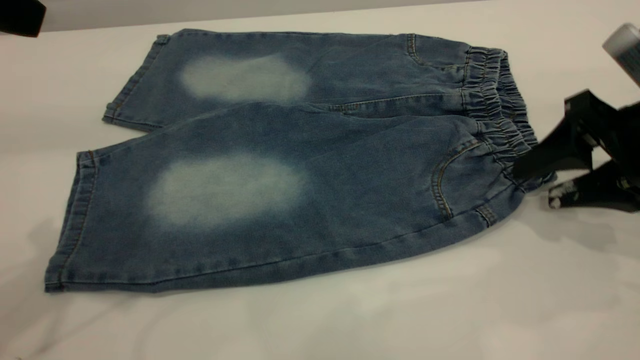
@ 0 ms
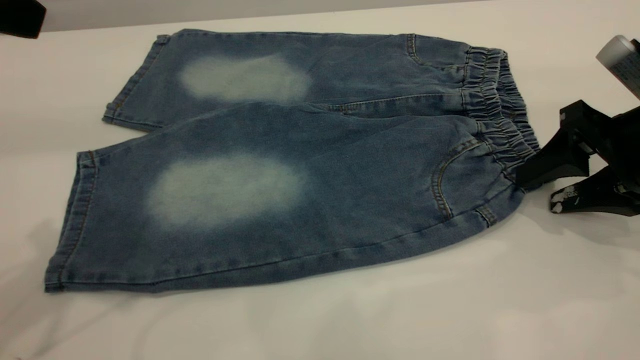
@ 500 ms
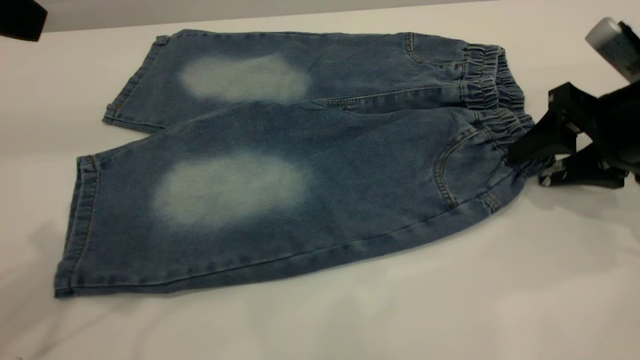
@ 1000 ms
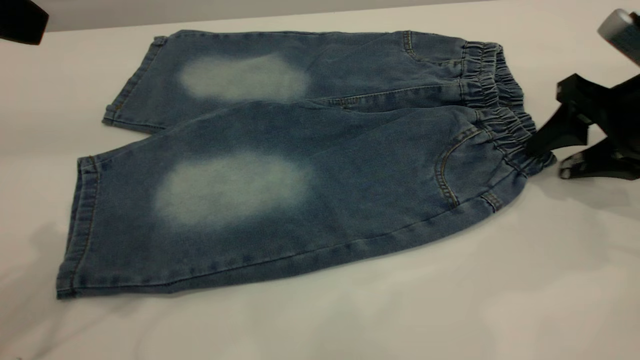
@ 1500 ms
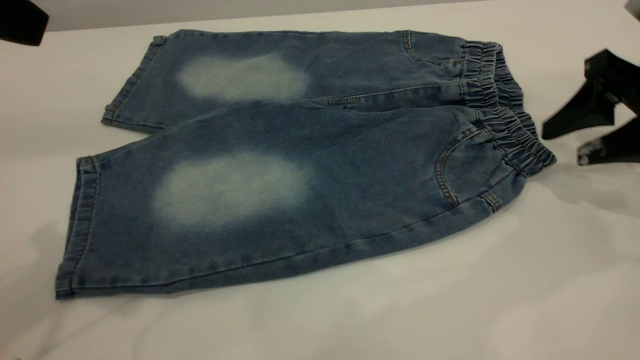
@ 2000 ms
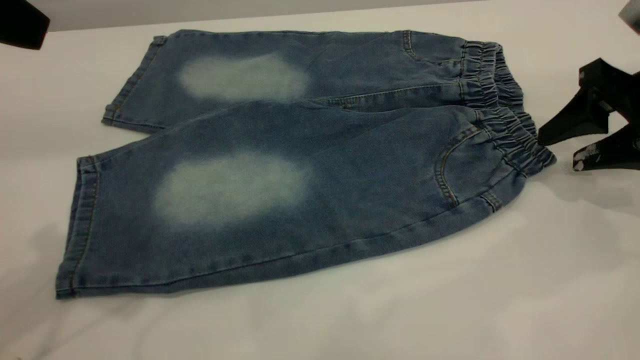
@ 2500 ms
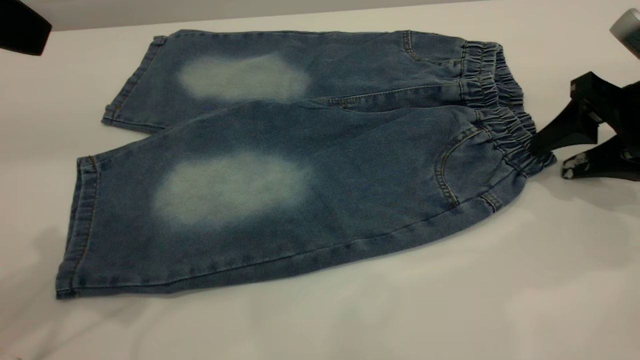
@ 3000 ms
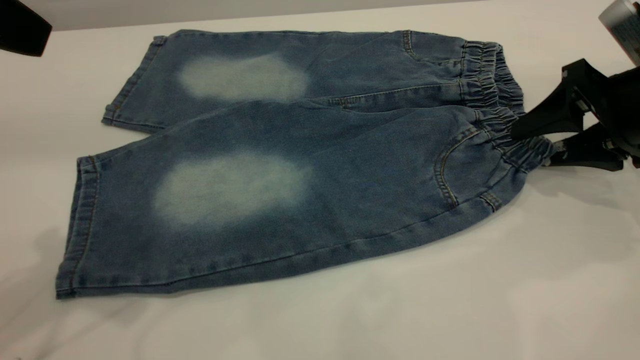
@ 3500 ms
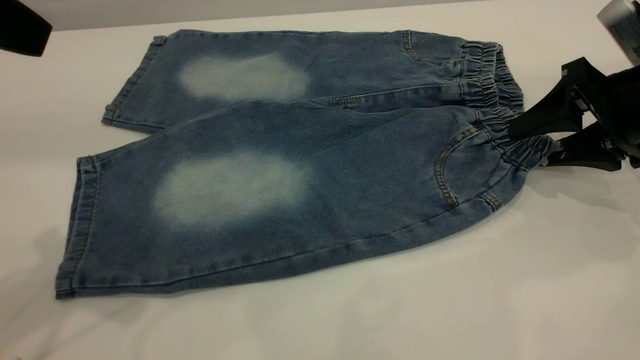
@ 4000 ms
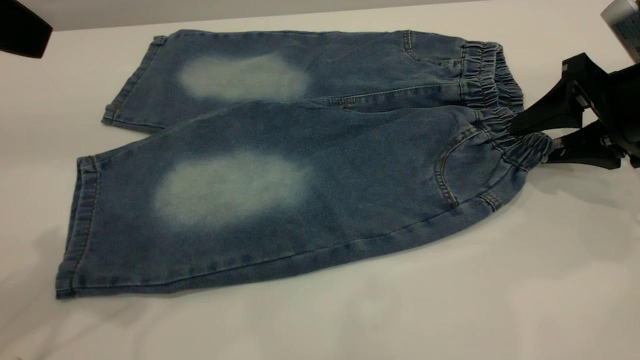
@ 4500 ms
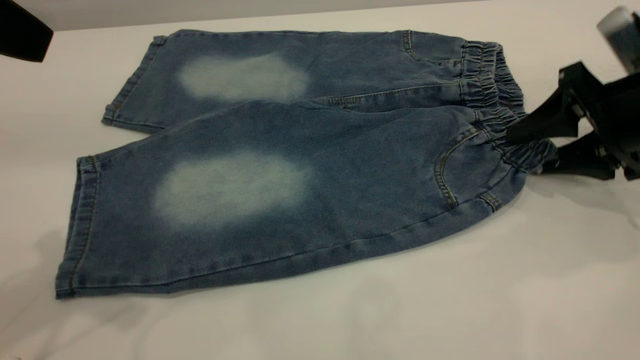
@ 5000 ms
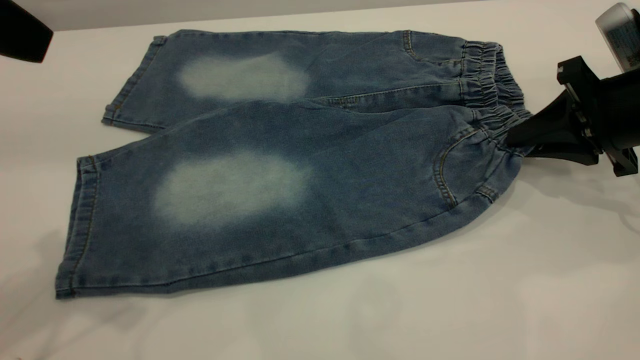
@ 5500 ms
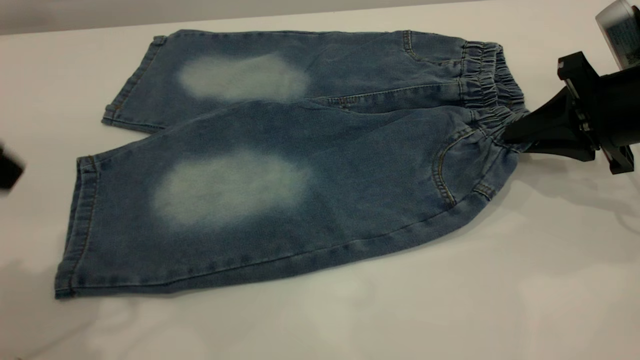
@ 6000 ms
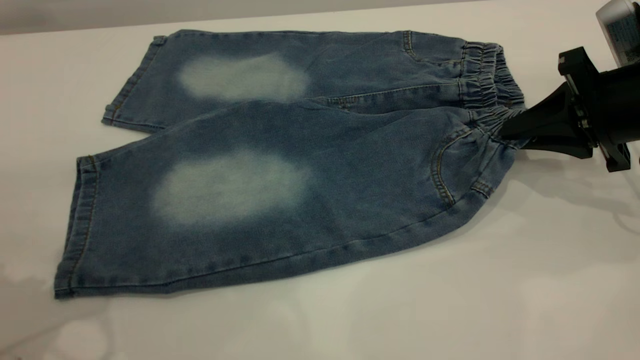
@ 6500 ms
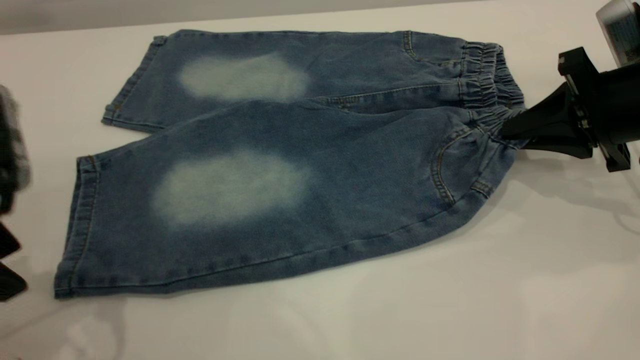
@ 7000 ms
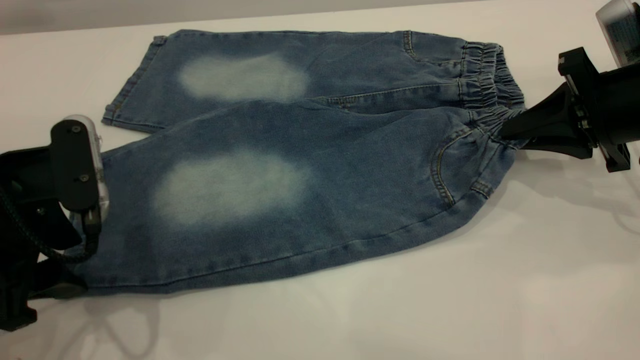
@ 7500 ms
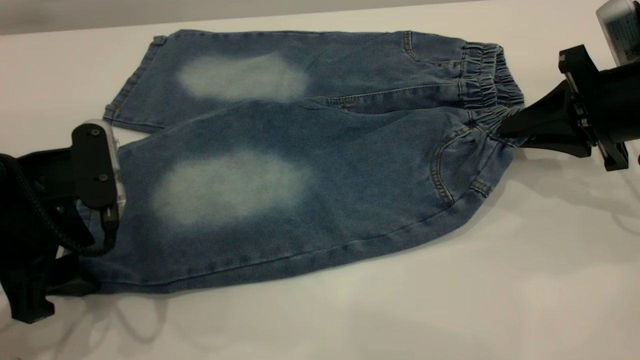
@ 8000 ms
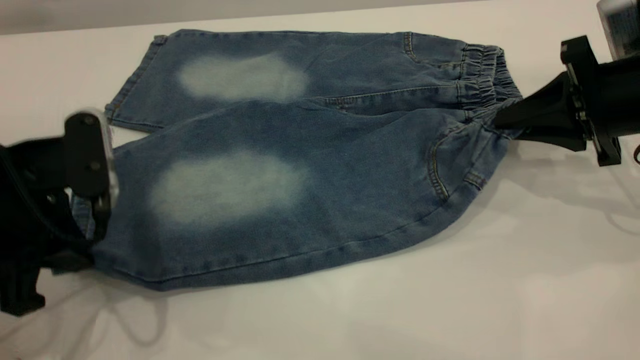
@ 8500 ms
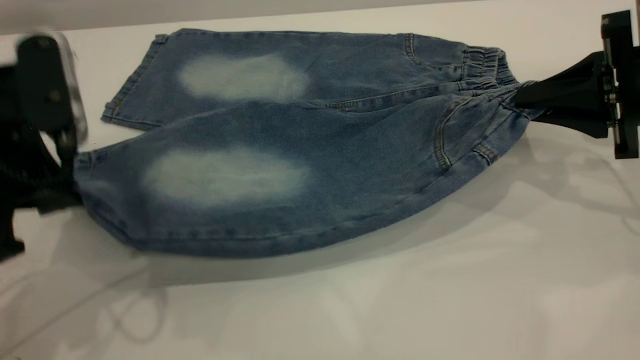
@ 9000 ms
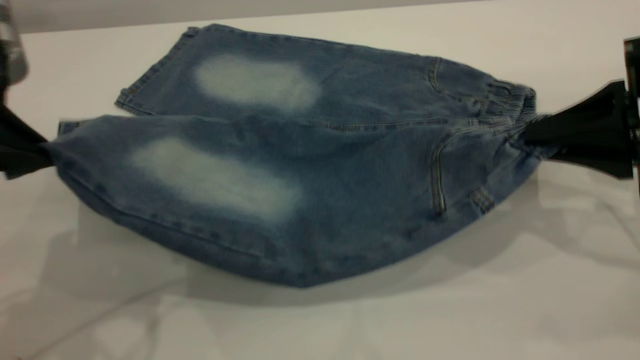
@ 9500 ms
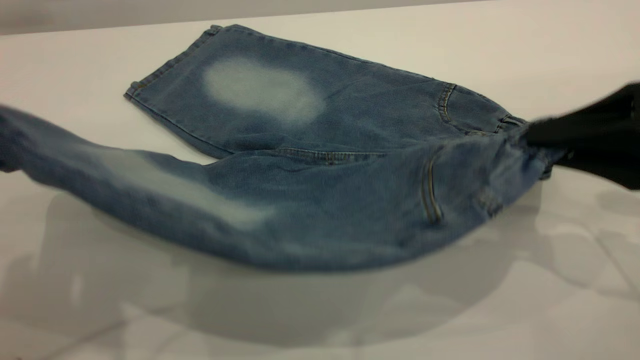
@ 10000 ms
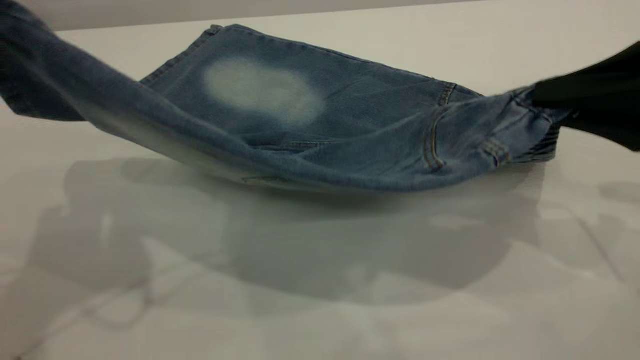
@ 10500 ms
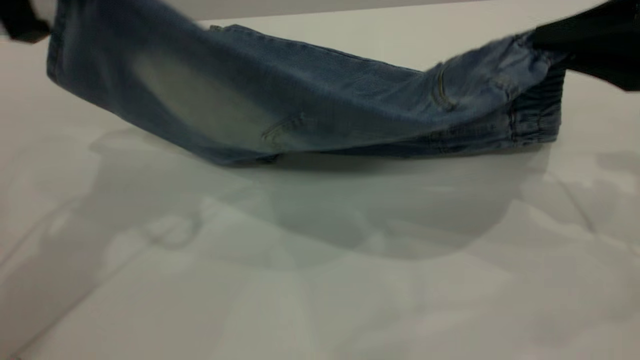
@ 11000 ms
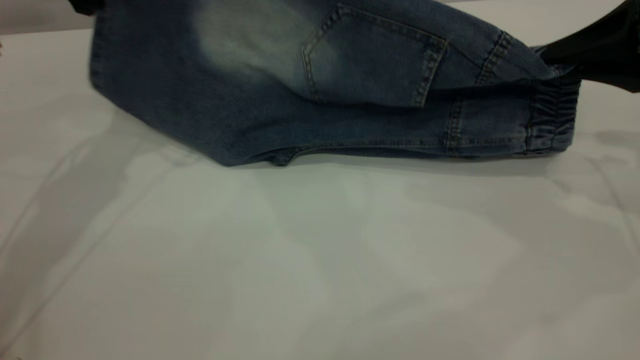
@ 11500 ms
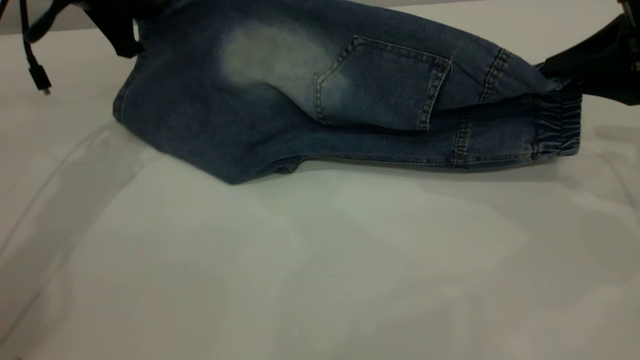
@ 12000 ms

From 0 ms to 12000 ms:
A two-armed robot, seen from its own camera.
From 0 ms to 4000 ms: There are only small adjustments of the grippers.
From 4000 ms to 6000 ms: The right gripper closes its fingers, while the left gripper travels downward by about 5 cm.
From 6000 ms to 8000 ms: The left gripper heads downward, covering about 15 cm.
From 8000 ms to 10000 ms: The right gripper heads backward and upward, covering about 10 cm. The left gripper heads upward, covering roughly 15 cm, and closes up.
From 10000 ms to 12000 ms: The left gripper goes approximately 25 cm forward, while the right gripper shifts roughly 10 cm forward.

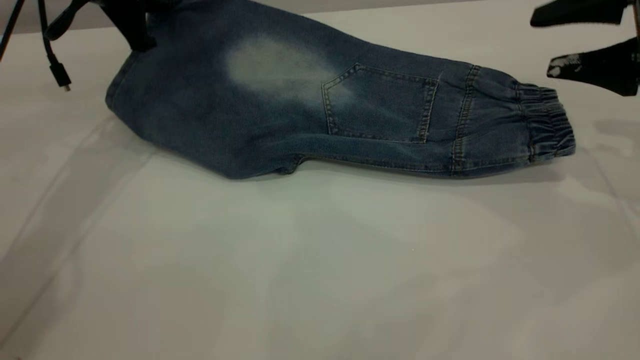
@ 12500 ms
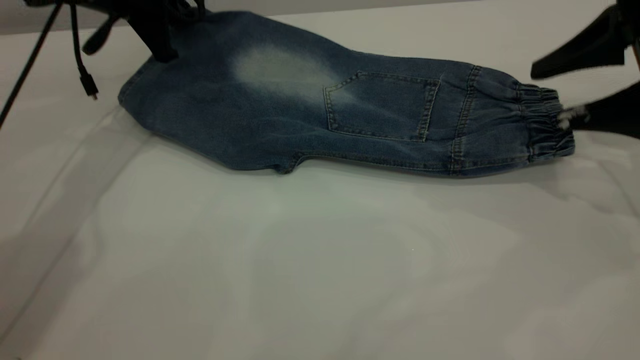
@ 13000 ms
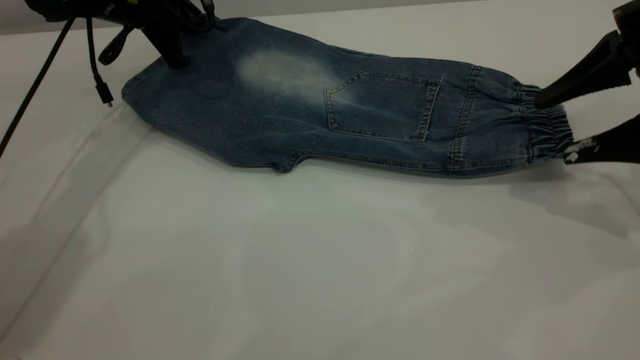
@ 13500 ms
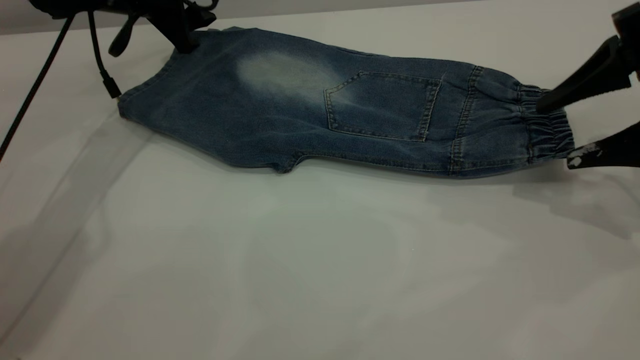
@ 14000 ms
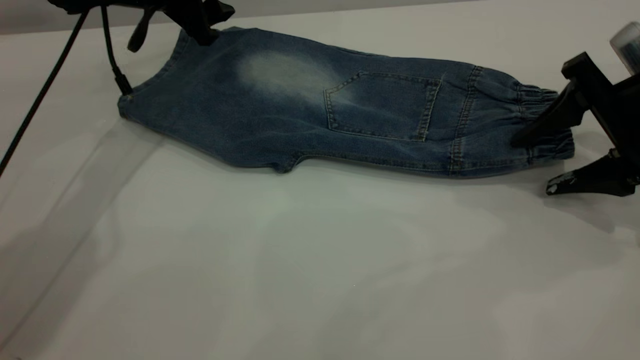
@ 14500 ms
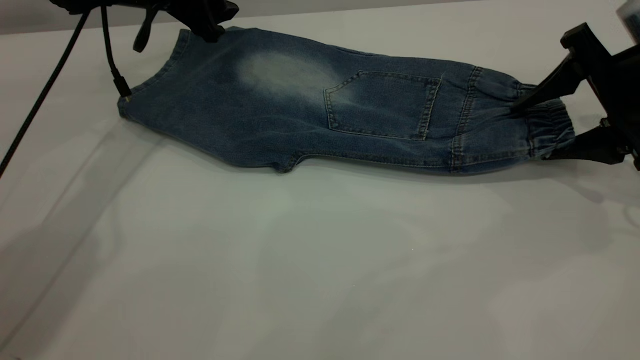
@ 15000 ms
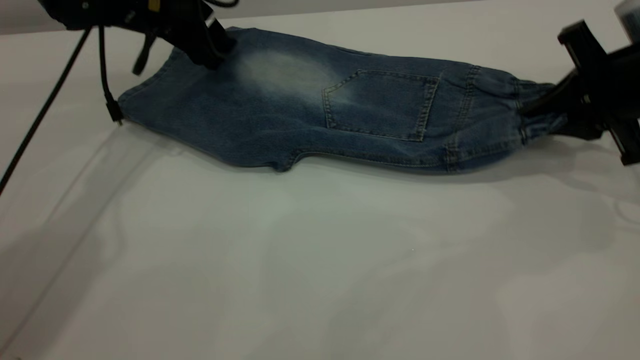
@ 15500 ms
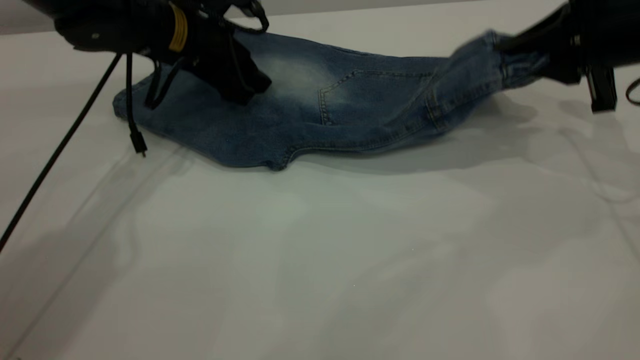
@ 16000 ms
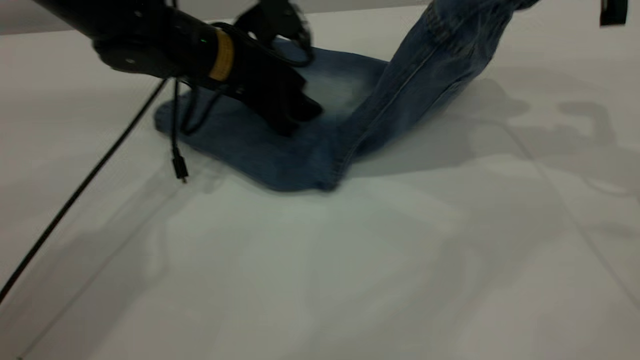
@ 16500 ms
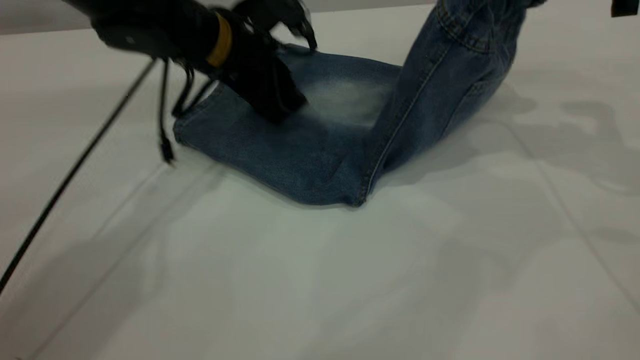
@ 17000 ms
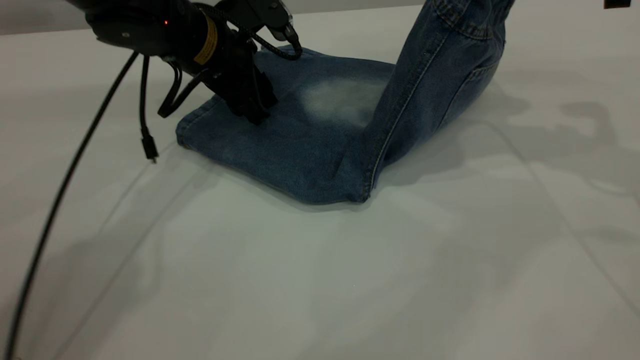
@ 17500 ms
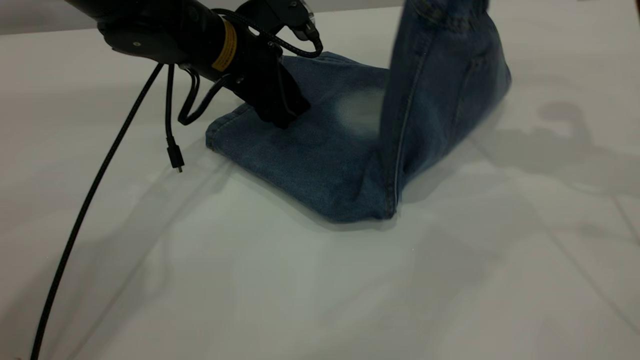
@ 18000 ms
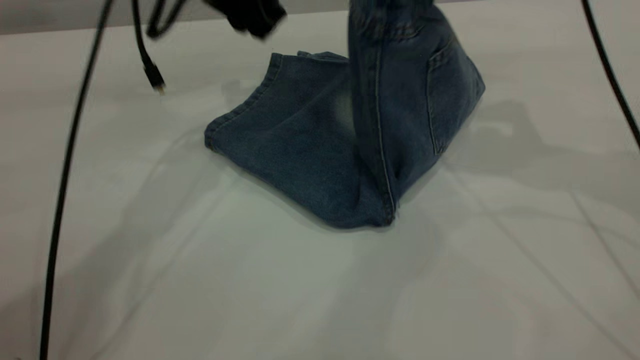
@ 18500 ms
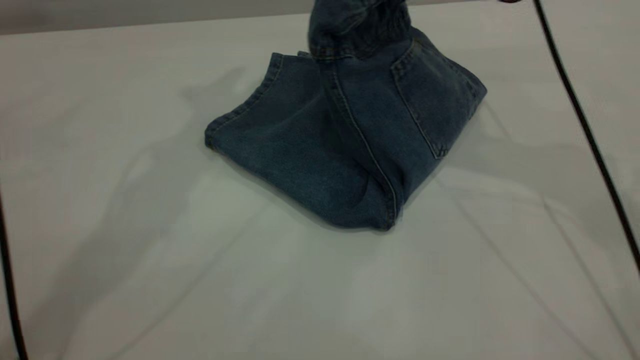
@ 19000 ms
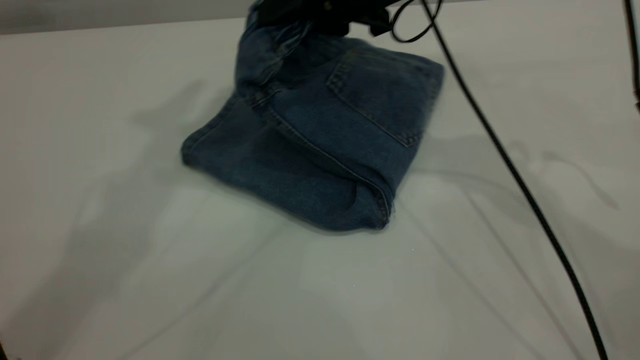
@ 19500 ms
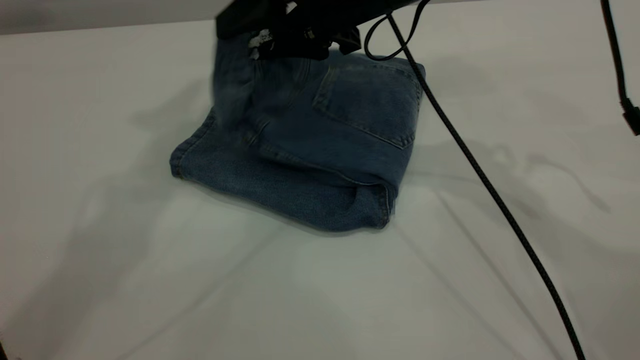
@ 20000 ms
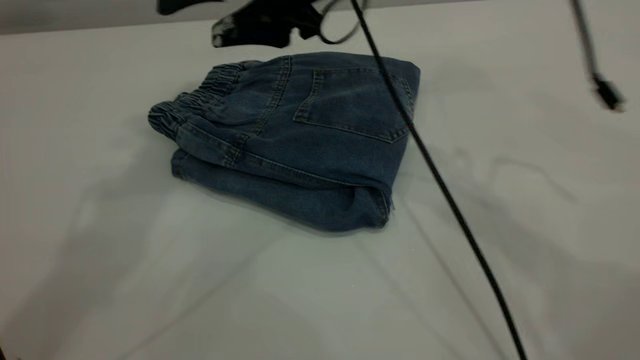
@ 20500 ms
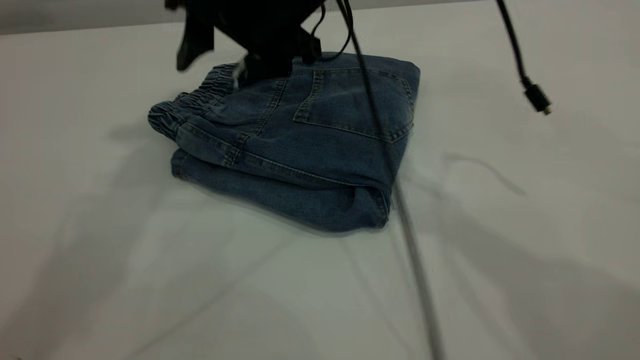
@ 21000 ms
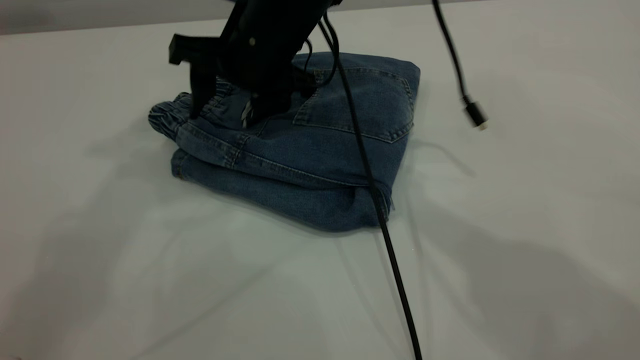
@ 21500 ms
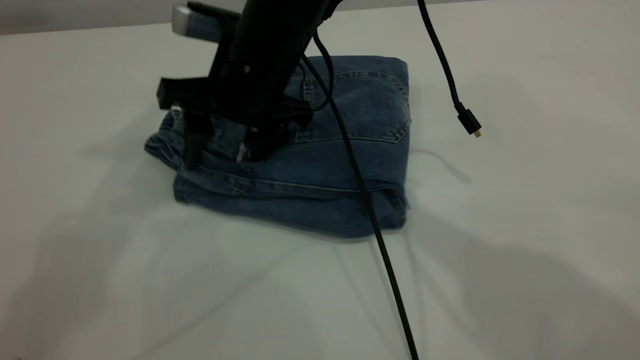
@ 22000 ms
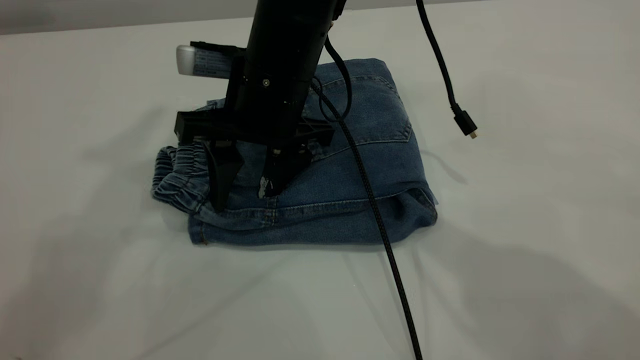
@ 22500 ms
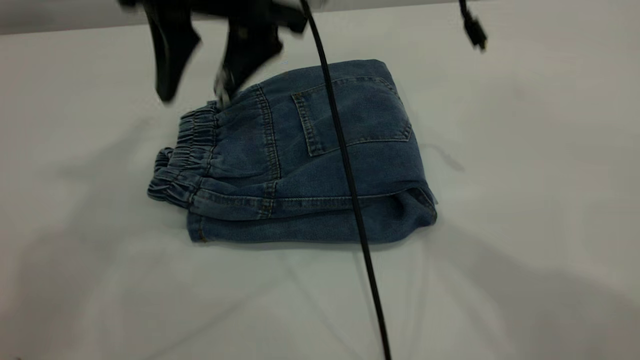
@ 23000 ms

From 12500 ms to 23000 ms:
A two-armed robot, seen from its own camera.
Step, from 14000 ms to 20500 ms: Fold your pants from right to left.
From 12500 ms to 14500 ms: The left gripper shifts by about 5 cm, and opens up, while the right gripper heads downward, covering approximately 5 cm.
From 14500 ms to 16500 ms: The left gripper goes about 15 cm to the right, backward and downward, while the right gripper is displaced upward by about 10 cm, and closes up.
From 16500 ms to 19000 ms: The left gripper shifts roughly 30 cm upward. The right gripper heads to the left, covering some 15 cm.
From 19000 ms to 21000 ms: The left gripper is displaced upward and backward by roughly 15 cm, while the right gripper goes some 15 cm to the left, and opens its fingers.
From 21000 ms to 23000 ms: The right gripper heads upward, covering some 10 cm. The left gripper goes about 5 cm backward.
